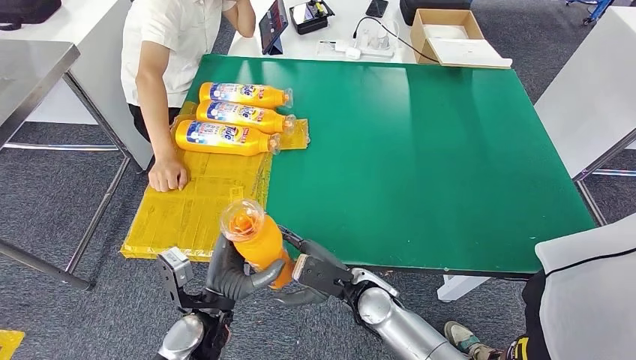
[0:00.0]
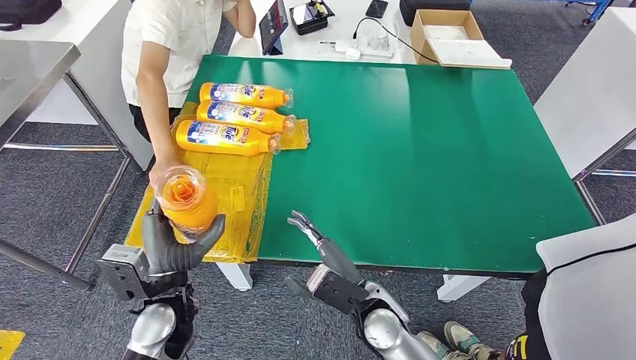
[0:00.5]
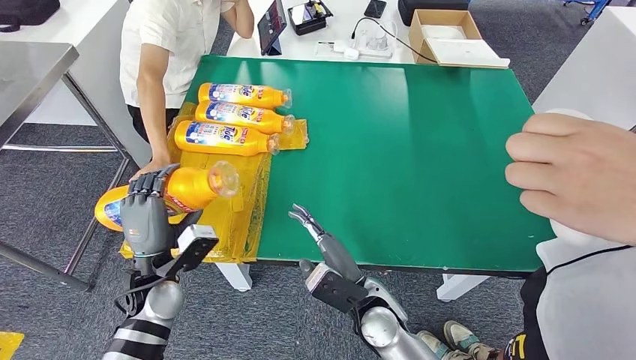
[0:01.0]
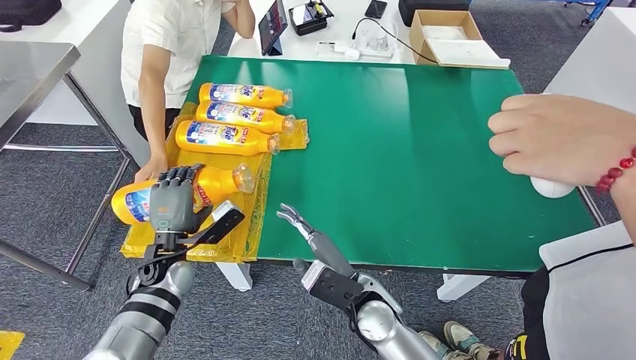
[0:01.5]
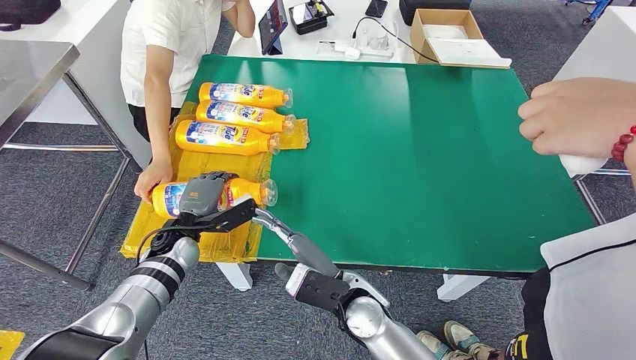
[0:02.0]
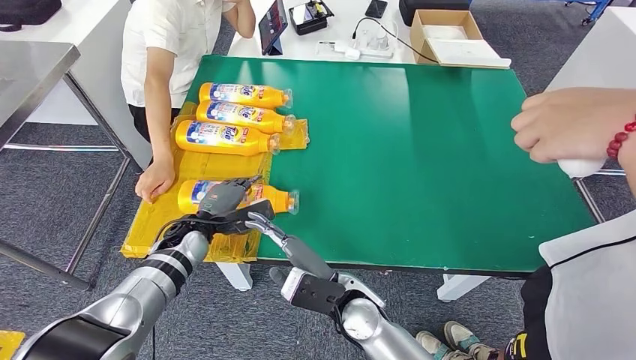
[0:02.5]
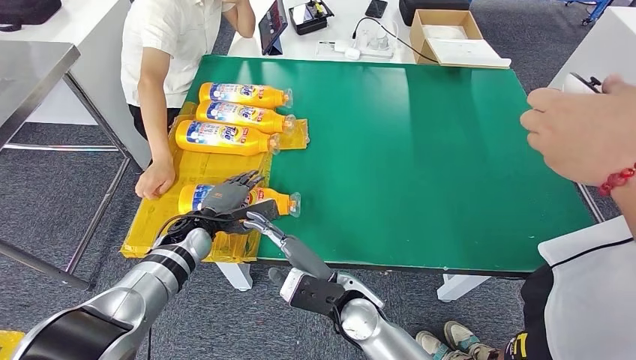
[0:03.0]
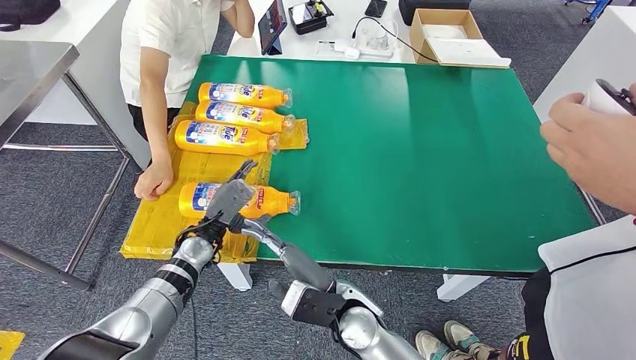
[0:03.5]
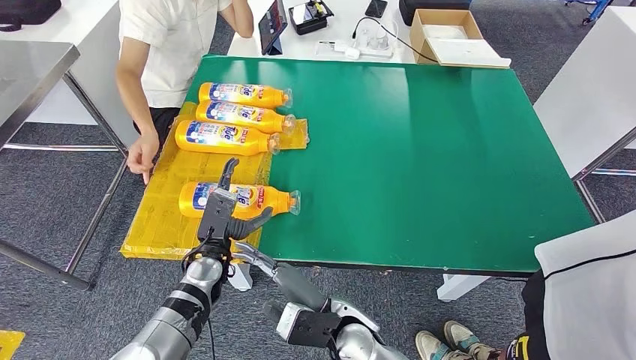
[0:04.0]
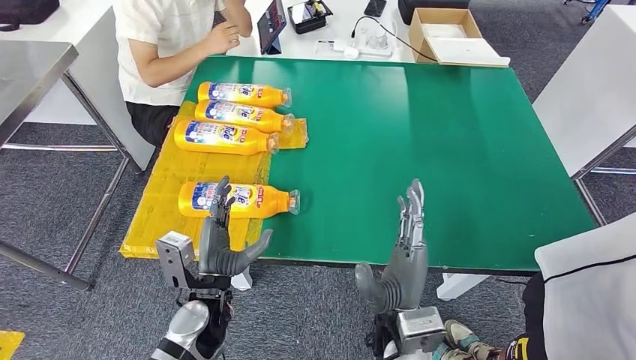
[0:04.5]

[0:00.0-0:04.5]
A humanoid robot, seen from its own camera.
Step, 0:00.0 to 0:04.5: Flip the bottle to face forward.
0:00.0 to 0:02.0: The left hand goes about 20 cm forward and to the left.
